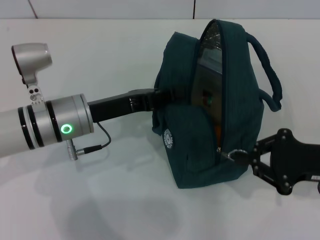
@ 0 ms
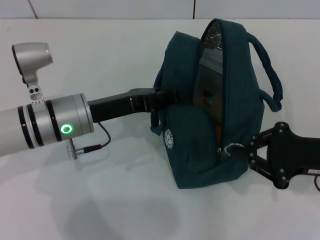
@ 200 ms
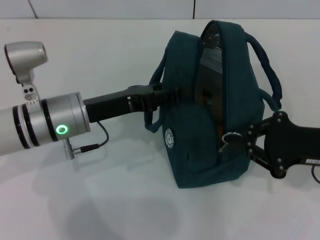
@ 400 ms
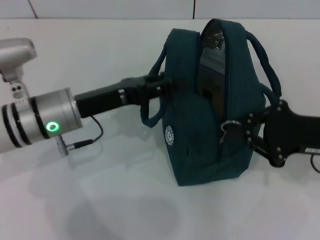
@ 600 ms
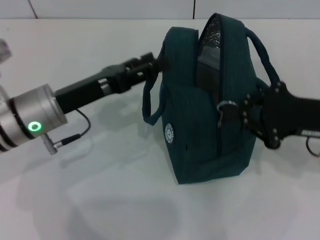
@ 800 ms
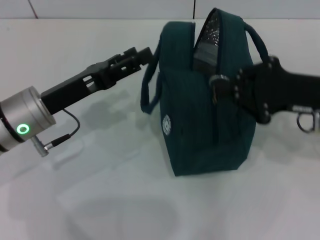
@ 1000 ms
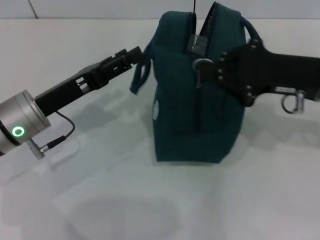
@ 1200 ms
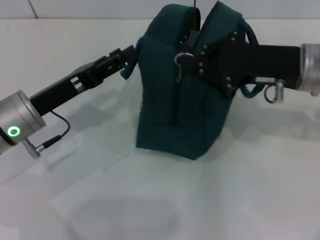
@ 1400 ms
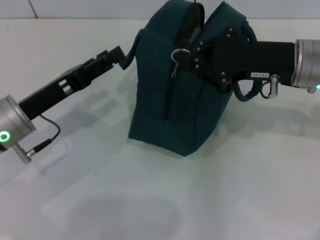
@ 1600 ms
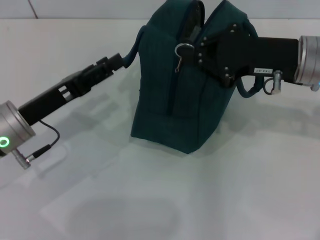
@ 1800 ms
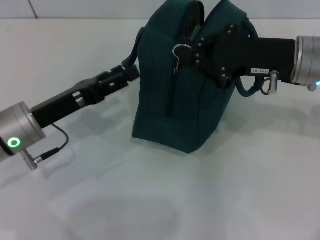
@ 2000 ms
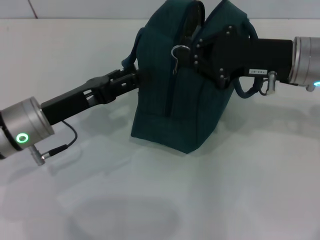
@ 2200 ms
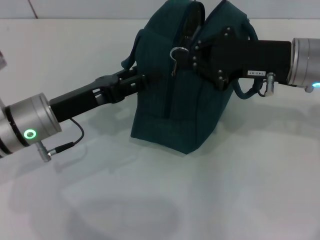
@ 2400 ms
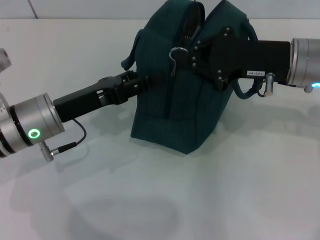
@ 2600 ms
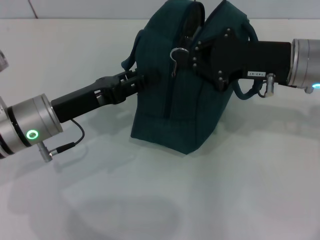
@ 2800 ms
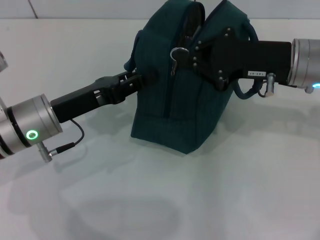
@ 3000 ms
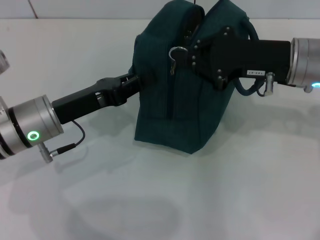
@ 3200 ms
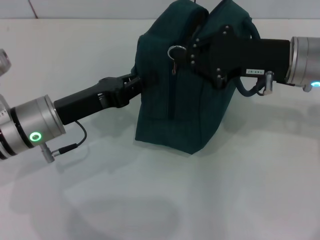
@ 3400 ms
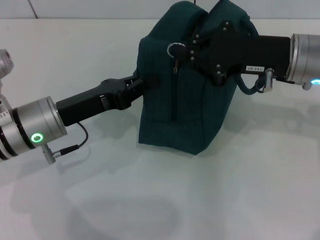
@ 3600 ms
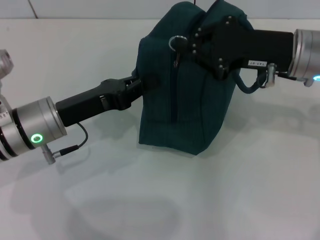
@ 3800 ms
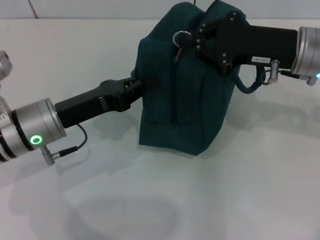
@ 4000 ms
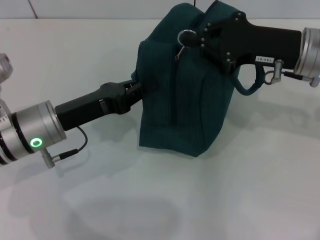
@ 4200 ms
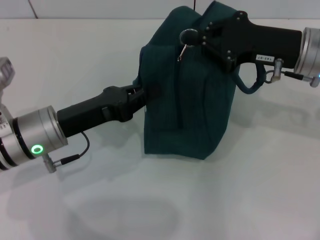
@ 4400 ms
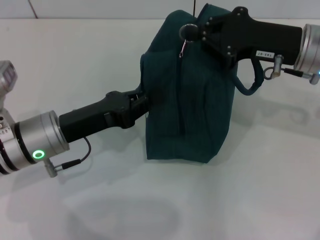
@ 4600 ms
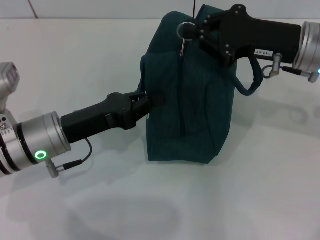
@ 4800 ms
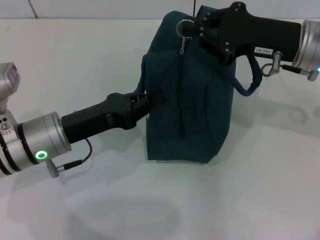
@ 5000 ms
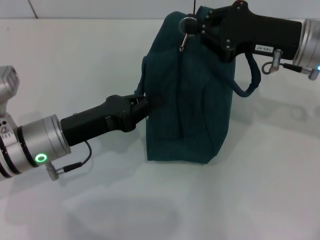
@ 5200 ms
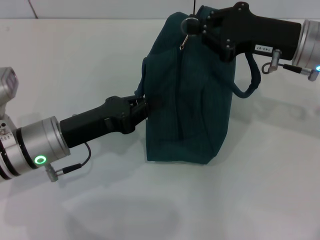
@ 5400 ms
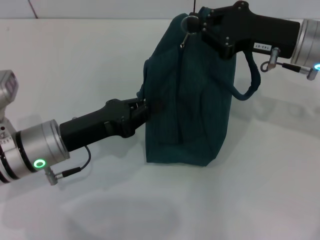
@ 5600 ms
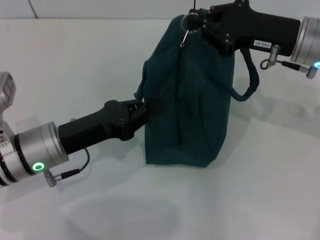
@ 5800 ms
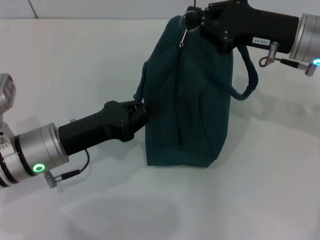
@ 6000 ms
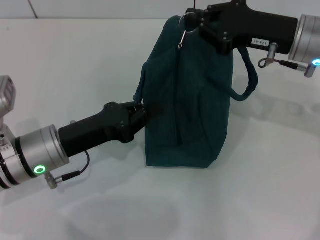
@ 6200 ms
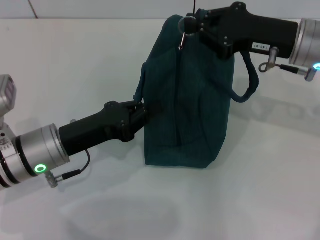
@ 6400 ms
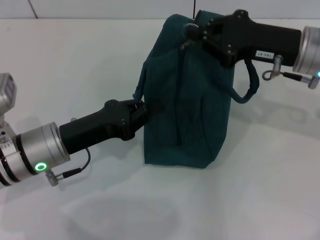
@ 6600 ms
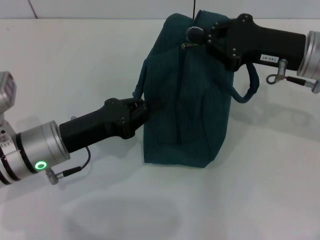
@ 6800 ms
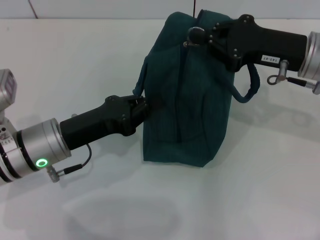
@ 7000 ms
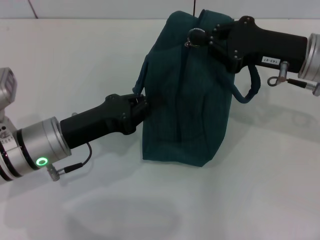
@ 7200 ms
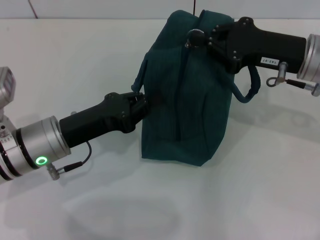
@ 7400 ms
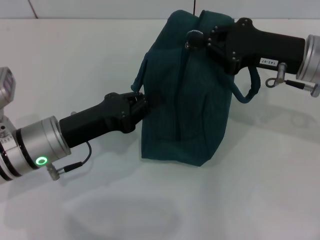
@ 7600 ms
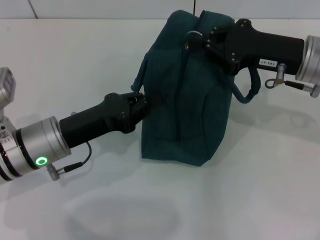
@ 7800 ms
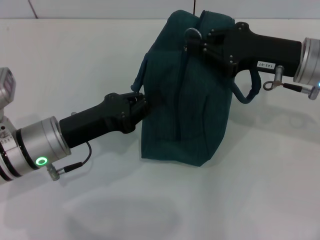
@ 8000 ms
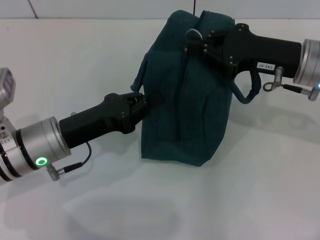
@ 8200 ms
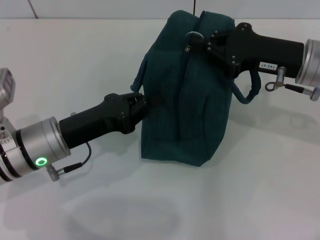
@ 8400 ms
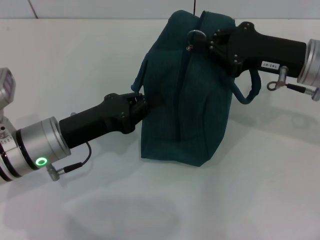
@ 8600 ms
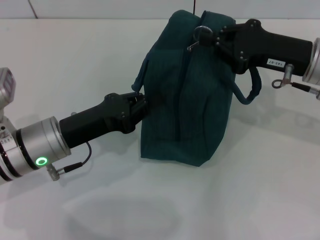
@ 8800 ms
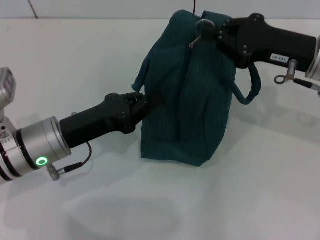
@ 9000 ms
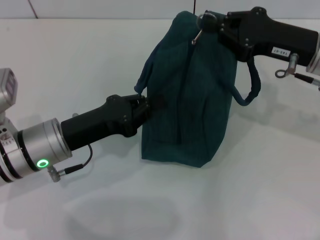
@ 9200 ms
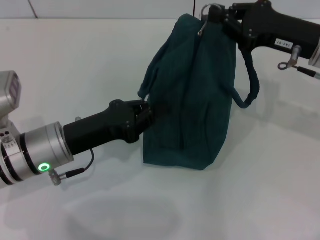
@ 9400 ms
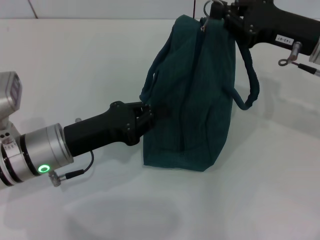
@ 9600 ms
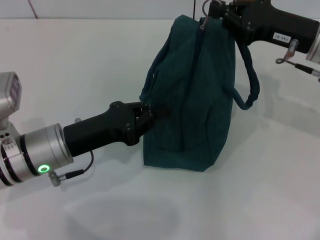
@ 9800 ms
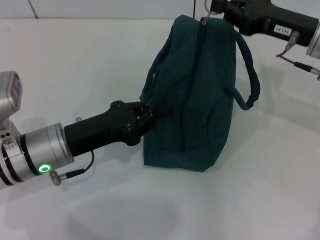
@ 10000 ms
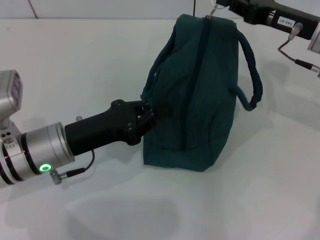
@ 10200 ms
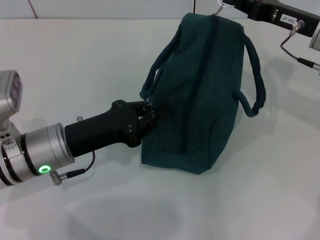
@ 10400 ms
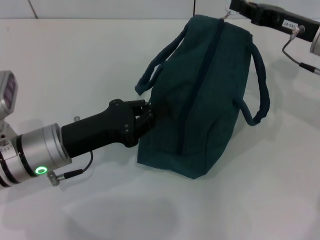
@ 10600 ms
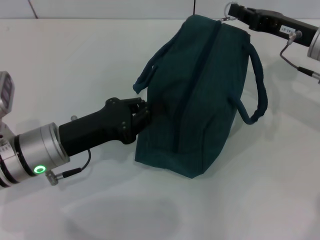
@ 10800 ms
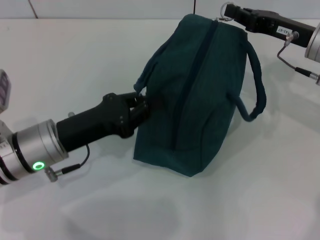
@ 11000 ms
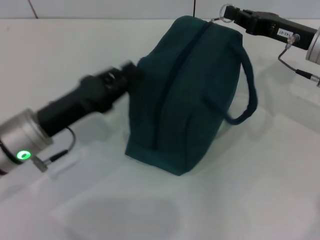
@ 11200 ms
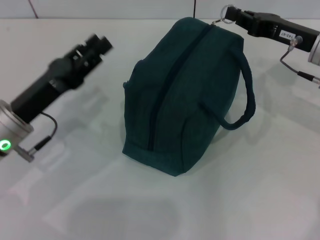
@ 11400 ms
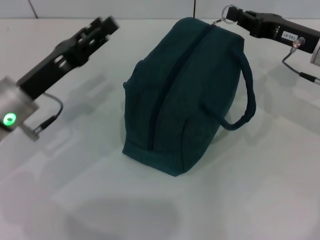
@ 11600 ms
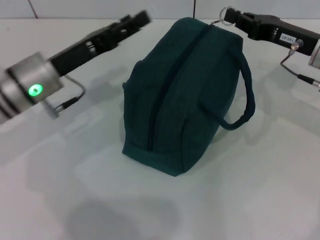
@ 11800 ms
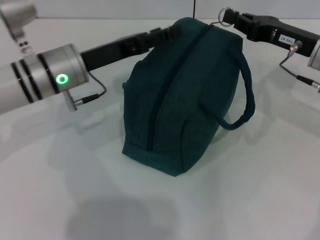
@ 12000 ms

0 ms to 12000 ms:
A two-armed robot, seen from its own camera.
0 ms to 1600 ms: The left gripper is displaced to the left by approximately 5 cm, and opens its fingers, while the right gripper travels forward, to the left and upward by approximately 15 cm.
1600 ms to 3000 ms: The left gripper closes.
3000 ms to 4400 ms: The left gripper closes its fingers.
6000 ms to 7600 ms: The grippers stay close to where they were, moving slightly.
7600 ms to 9000 ms: Neither gripper changes place.
10400 ms to 12000 ms: The left gripper moves forward, about 10 cm, and opens up.

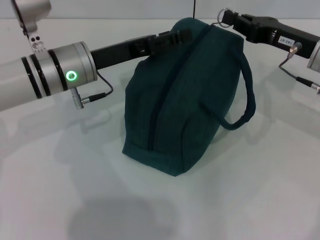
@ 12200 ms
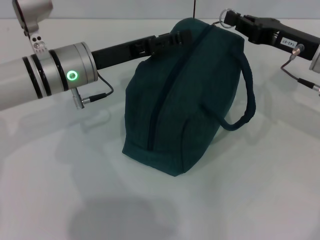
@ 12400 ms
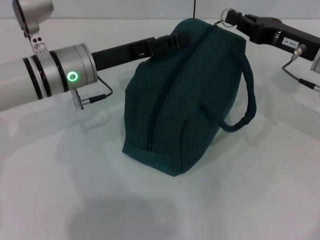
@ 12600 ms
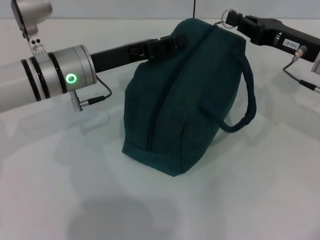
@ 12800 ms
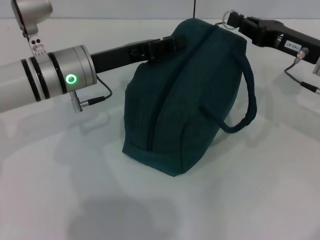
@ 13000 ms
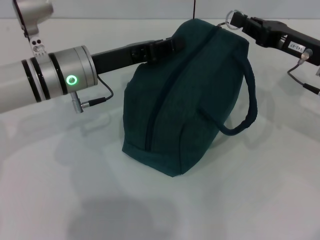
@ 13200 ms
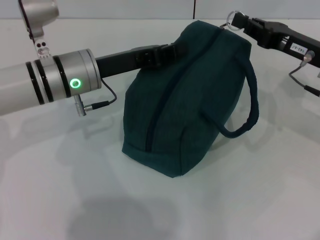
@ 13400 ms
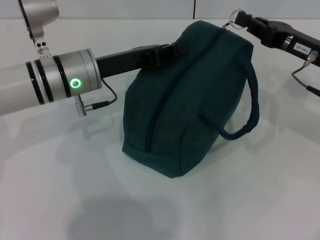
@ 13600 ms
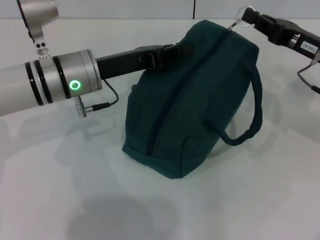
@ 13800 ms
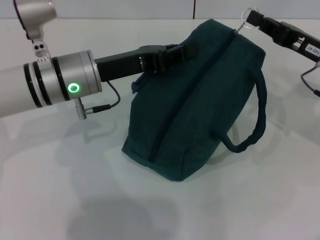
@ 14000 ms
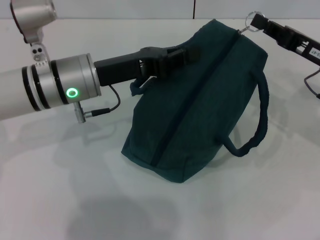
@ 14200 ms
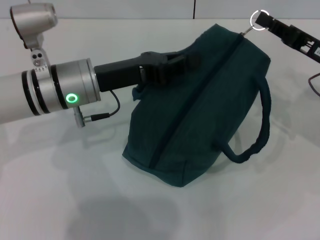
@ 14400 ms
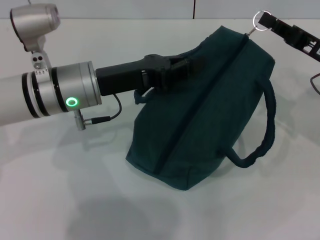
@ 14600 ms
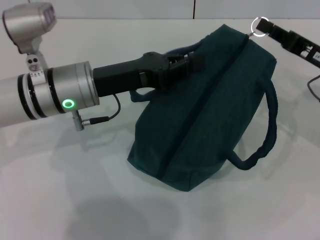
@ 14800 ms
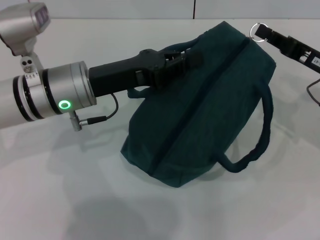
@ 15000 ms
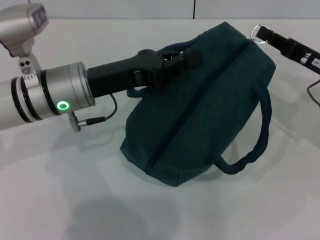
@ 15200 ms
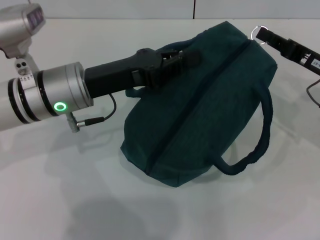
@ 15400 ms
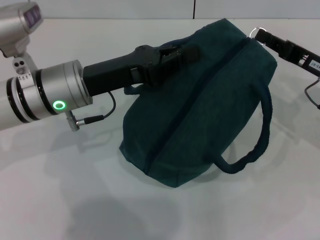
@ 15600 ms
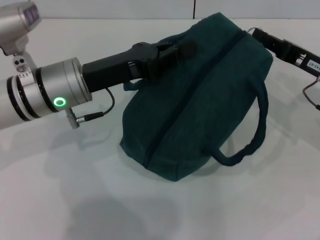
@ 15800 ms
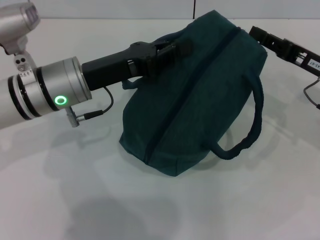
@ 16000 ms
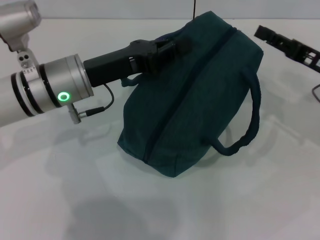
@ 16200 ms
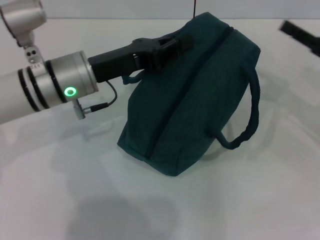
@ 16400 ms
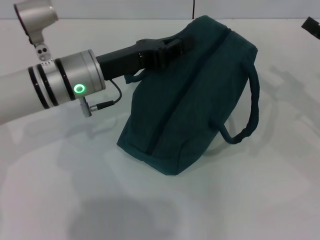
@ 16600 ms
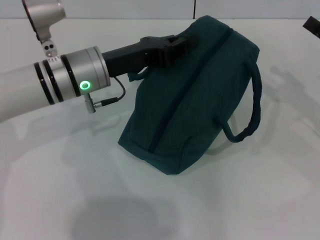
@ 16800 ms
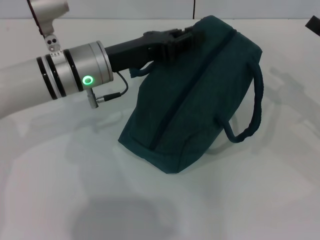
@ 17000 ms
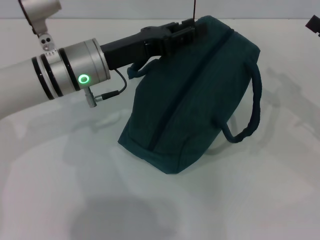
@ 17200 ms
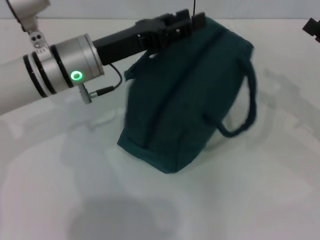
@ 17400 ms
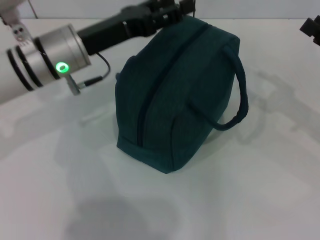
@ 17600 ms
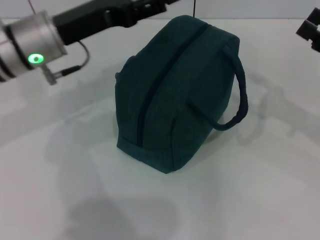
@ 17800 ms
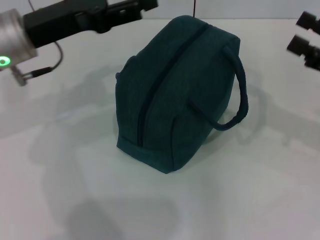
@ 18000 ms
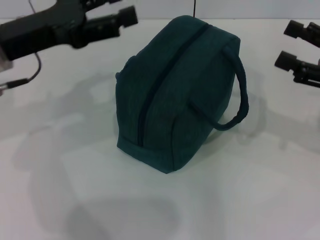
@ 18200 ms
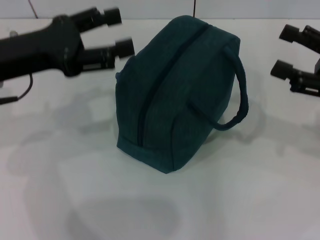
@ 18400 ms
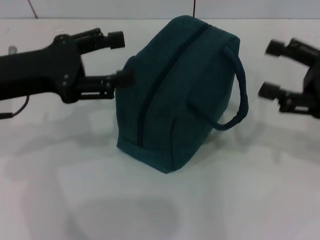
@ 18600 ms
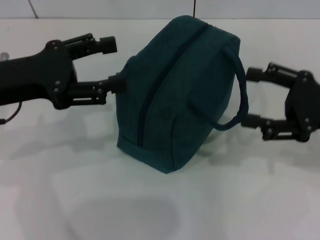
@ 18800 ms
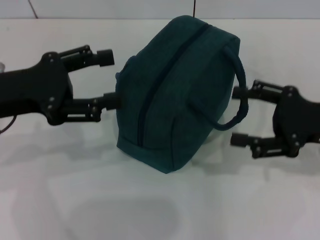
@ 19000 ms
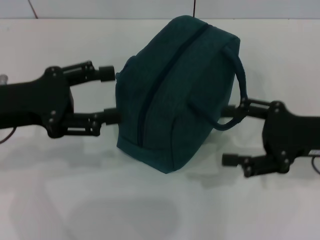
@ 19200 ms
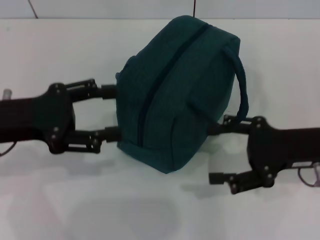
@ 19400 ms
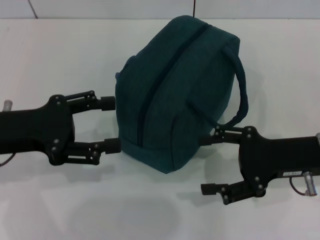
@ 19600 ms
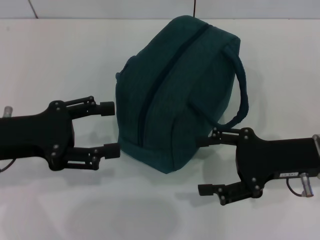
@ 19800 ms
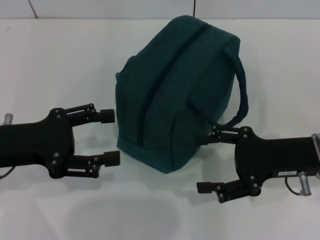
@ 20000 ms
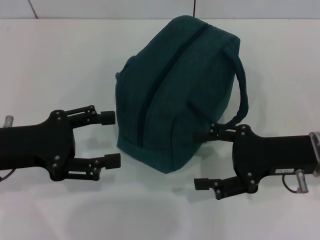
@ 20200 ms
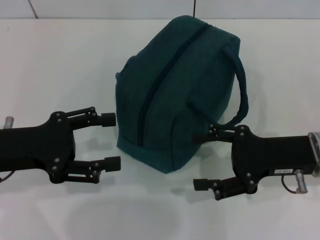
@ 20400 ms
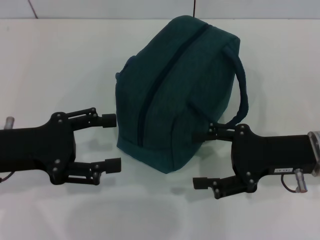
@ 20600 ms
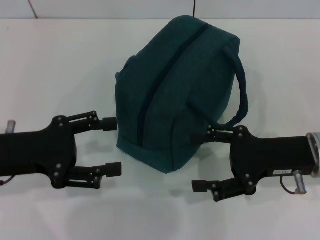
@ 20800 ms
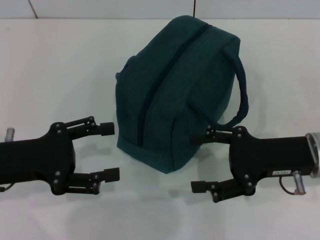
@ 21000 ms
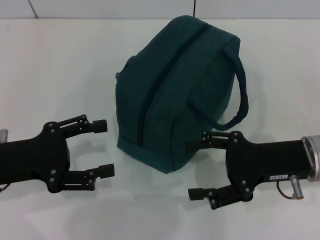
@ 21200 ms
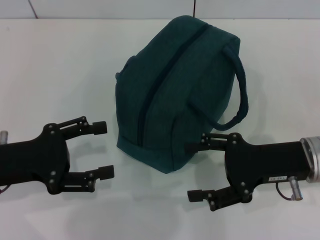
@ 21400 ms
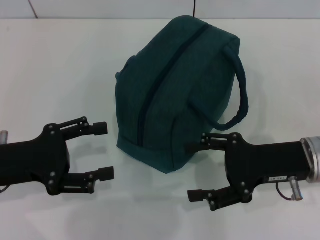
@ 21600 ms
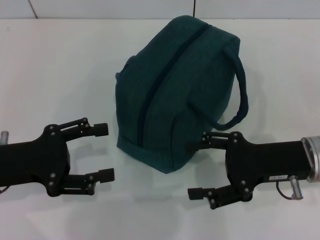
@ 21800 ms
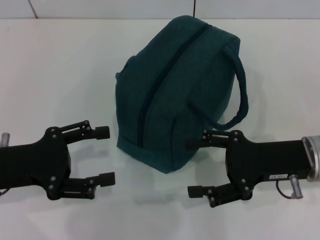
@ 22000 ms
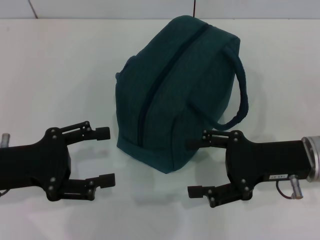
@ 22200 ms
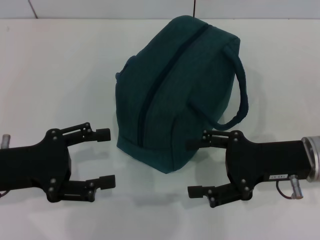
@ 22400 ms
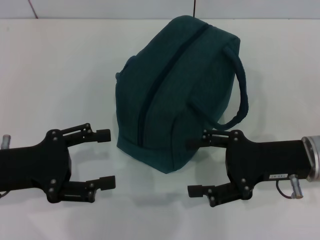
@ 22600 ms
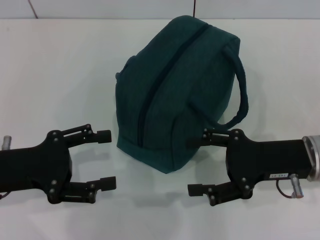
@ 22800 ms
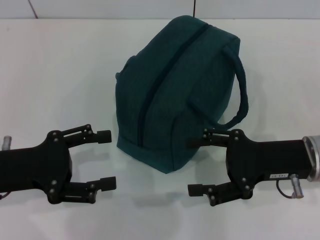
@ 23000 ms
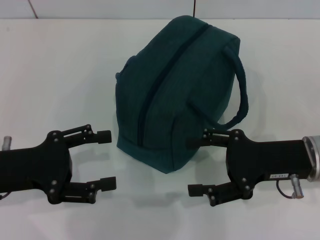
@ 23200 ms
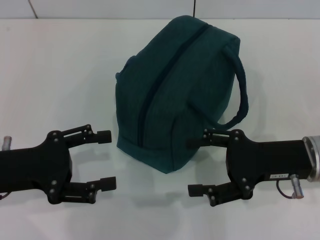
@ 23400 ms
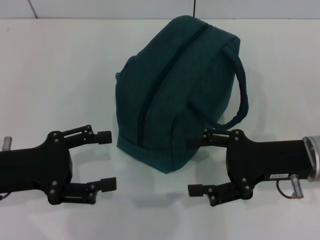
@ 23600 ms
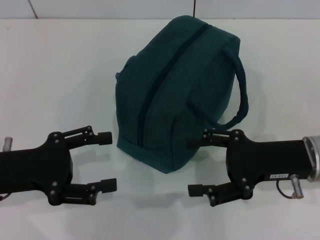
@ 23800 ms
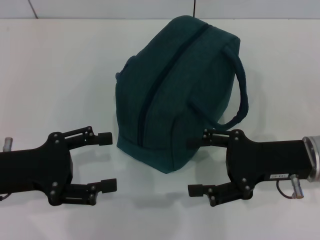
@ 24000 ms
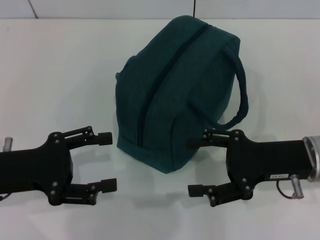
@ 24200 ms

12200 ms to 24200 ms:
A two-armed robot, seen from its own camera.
Step, 12200 ms to 16200 ms: Zip up the lunch bag with your right hand.
Step, 16400 ms to 17600 ms: Hold the lunch bag with your left hand.
12200 ms to 13800 ms: The left gripper closes its fingers.
15200 ms to 16600 ms: The right gripper shifts roughly 5 cm to the right, and opens its fingers.
16600 ms to 18200 ms: The right gripper ends up approximately 5 cm from where it was, and opens up. The left gripper shifts about 10 cm to the left and upward, and opens up.
18200 ms to 19800 ms: The left gripper is displaced backward by roughly 10 cm, while the right gripper is displaced to the left by roughly 10 cm.
19800 ms to 21200 ms: There are only small adjustments of the grippers.
21200 ms to 24200 ms: Neither gripper changes place.
